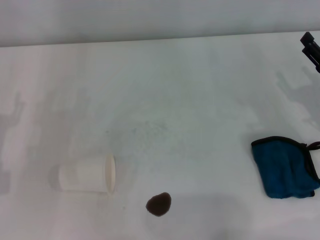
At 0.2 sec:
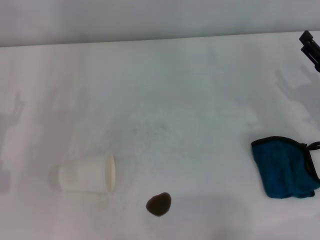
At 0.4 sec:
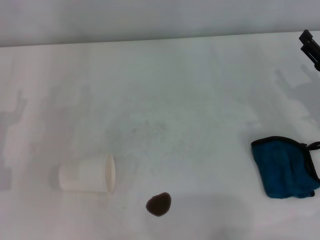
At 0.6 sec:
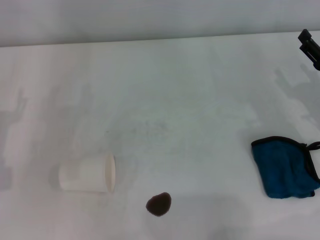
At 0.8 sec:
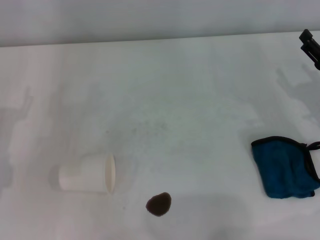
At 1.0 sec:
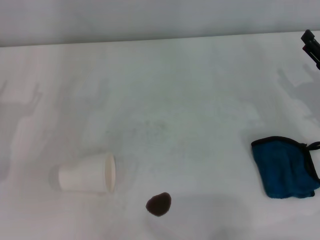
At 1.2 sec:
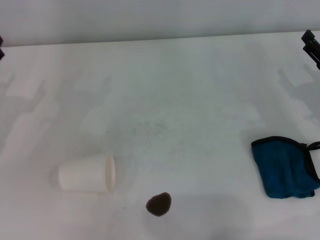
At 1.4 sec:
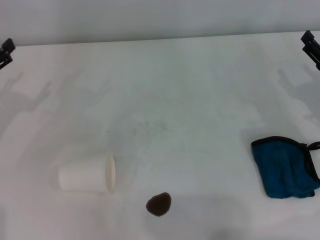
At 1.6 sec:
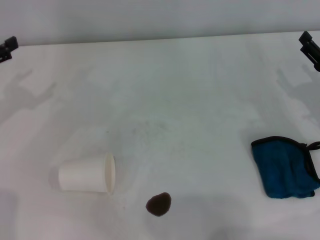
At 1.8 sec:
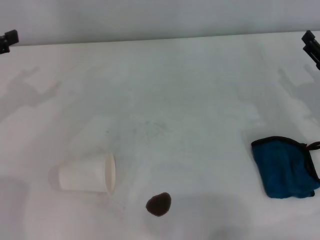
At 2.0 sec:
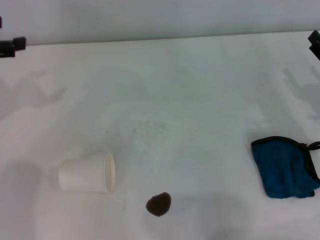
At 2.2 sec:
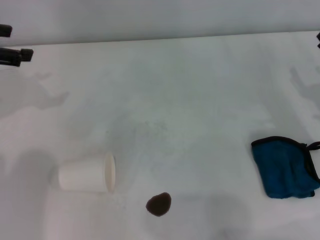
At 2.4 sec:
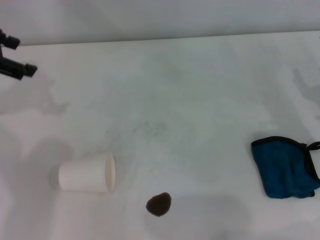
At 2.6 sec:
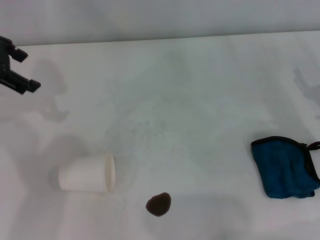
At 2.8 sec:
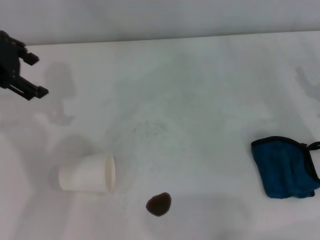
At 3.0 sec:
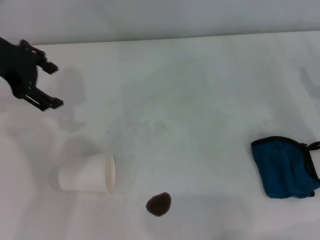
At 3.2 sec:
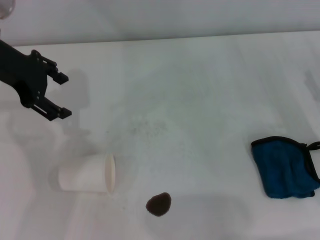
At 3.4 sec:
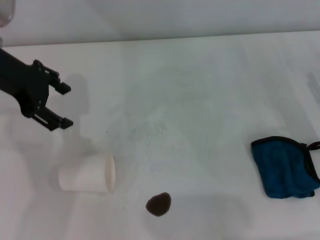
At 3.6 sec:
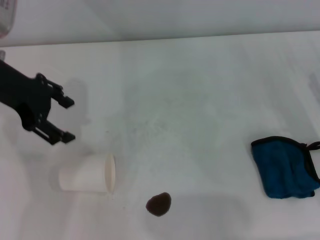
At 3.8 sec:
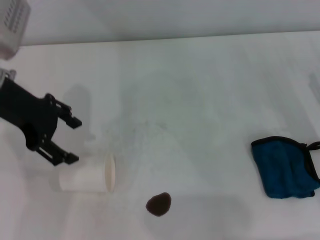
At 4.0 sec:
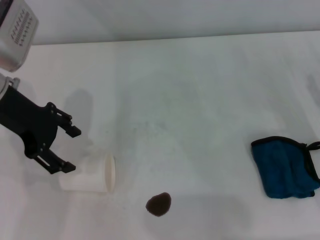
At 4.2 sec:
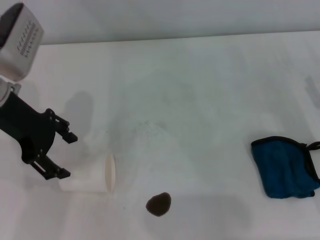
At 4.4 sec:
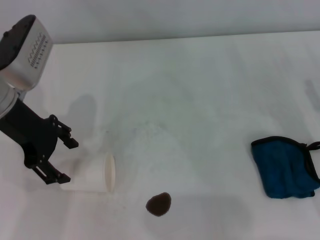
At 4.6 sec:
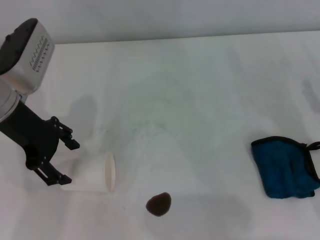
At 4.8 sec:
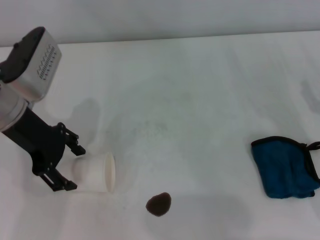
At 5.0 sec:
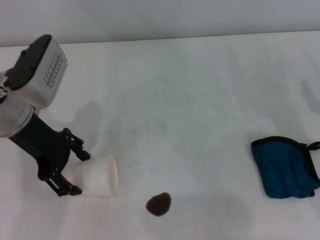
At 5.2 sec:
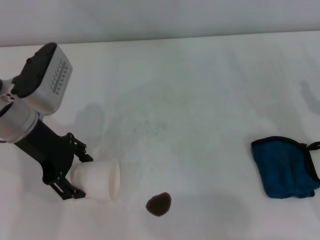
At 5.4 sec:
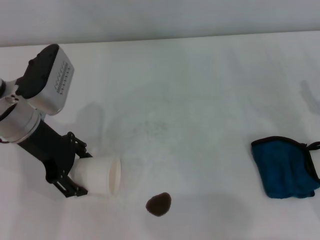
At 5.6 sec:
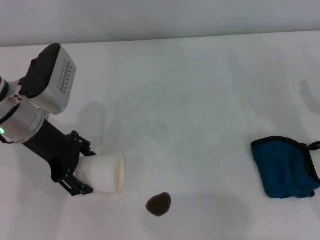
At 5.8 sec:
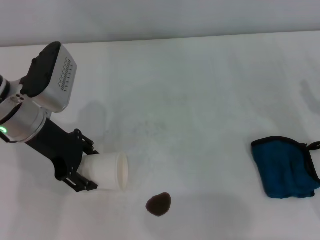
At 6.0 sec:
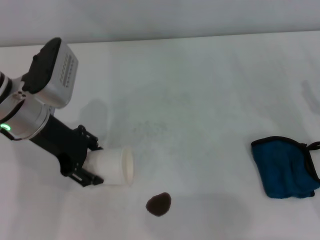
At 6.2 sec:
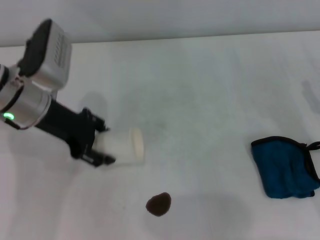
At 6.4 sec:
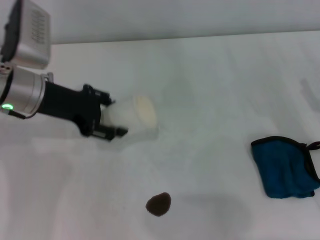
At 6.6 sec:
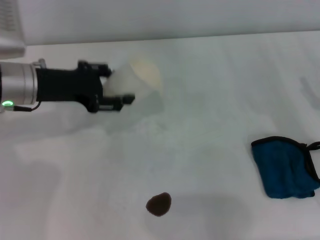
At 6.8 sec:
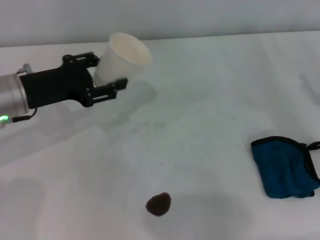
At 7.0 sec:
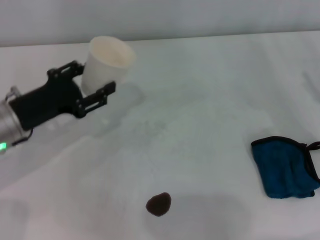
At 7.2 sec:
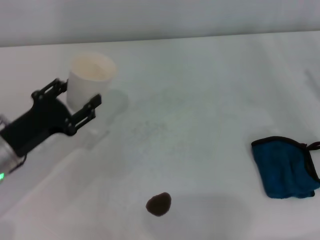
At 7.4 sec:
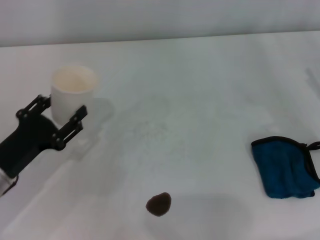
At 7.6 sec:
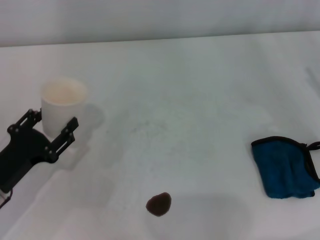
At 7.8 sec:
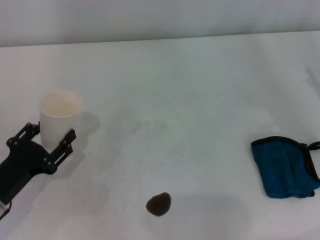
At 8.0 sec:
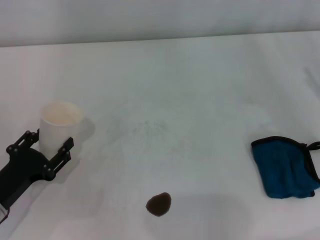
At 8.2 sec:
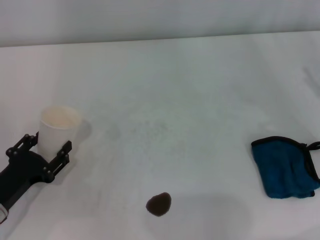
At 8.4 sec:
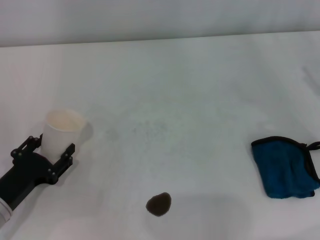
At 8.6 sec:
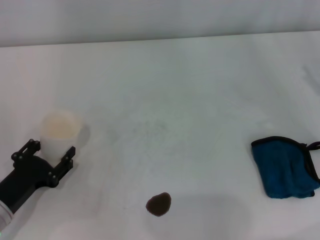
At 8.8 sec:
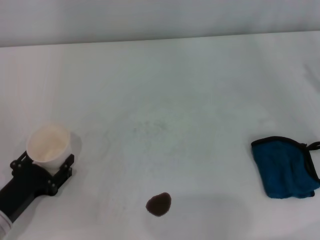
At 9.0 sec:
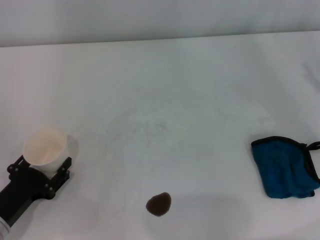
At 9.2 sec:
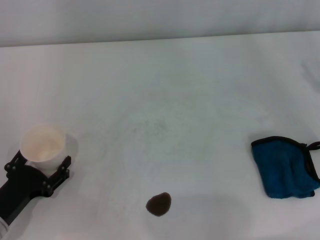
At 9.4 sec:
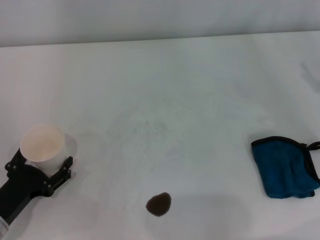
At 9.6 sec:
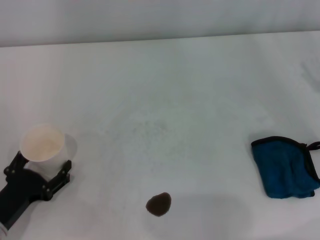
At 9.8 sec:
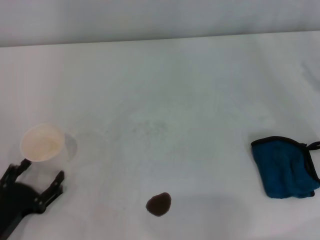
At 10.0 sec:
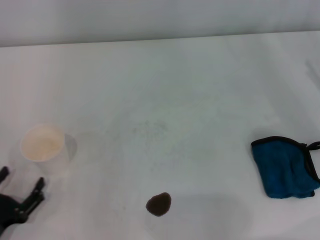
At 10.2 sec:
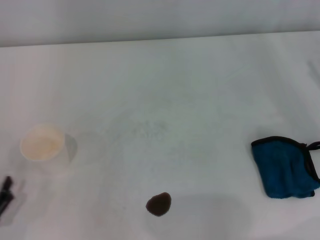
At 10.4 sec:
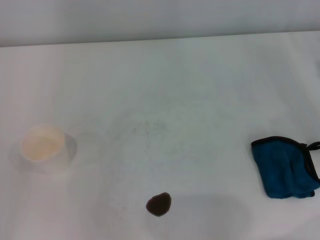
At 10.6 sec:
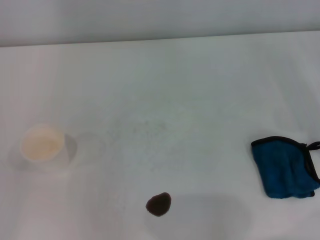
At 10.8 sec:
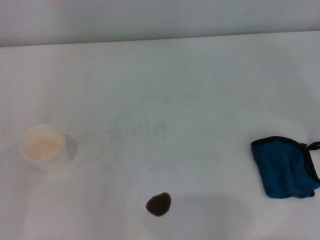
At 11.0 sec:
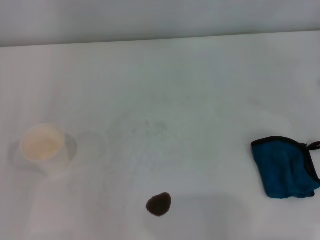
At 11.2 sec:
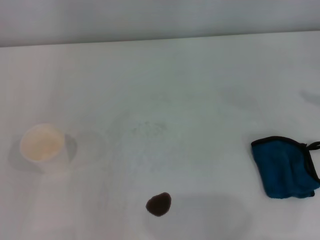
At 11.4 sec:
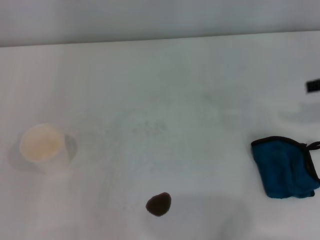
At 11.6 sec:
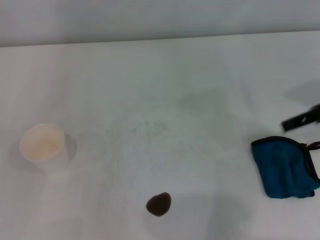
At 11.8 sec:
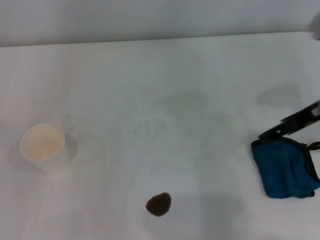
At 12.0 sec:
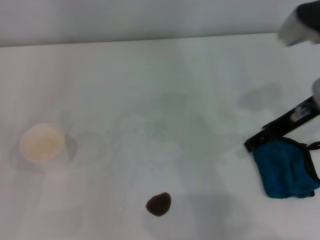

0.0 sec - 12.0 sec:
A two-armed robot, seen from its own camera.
Step, 0.0 sec - 5.8 sec: Grasp the paper cup with the left gripper.
Step, 6.0 sec - 9.4 sec: Stand the paper cup upright with the left gripper.
1.6 sec - 3.0 sec: The left gripper shifts about 15 cm to the right, upward and forward.
3.0 sec - 4.4 sec: The left gripper travels downward by some 5 cm.
4.4 sec - 6.0 sec: The left gripper changes place by approximately 5 cm, and closes its fingers.
6.0 sec - 7.6 sec: The left gripper moves backward, downward and to the left, some 20 cm, and closes up.
7.6 sec - 9.0 sec: The left gripper ends up about 5 cm from where it was.
9.0 sec - 10.4 sec: The left gripper travels backward and to the left by about 10 cm, and opens its fingers.
10.4 sec - 12.0 sec: The right gripper is displaced to the left and upward by some 20 cm.

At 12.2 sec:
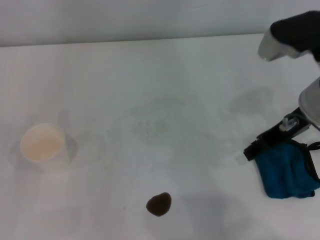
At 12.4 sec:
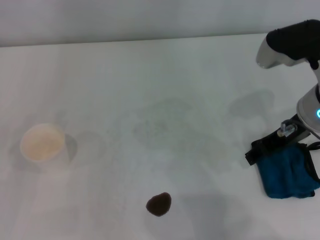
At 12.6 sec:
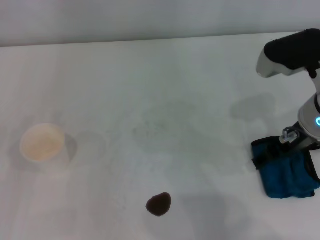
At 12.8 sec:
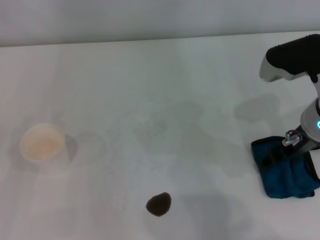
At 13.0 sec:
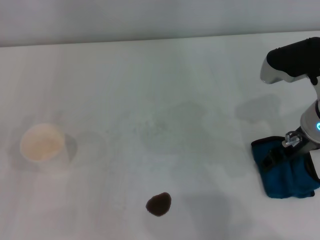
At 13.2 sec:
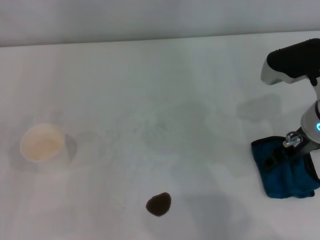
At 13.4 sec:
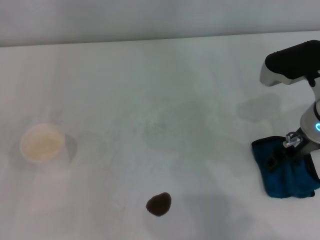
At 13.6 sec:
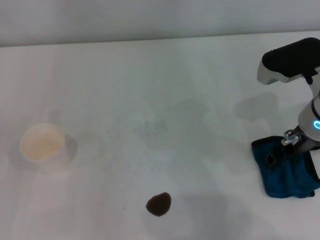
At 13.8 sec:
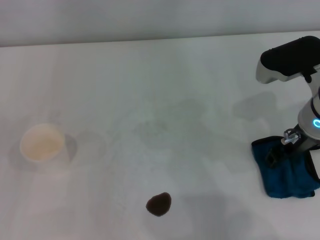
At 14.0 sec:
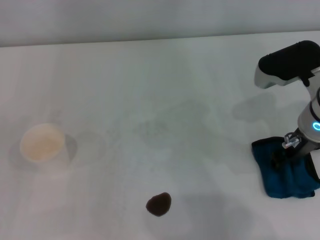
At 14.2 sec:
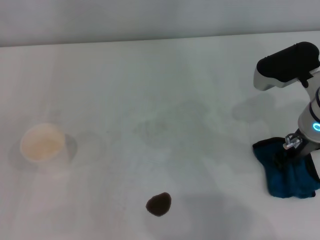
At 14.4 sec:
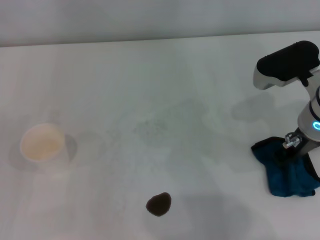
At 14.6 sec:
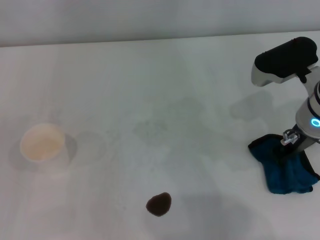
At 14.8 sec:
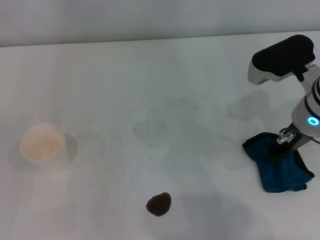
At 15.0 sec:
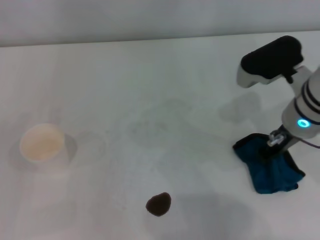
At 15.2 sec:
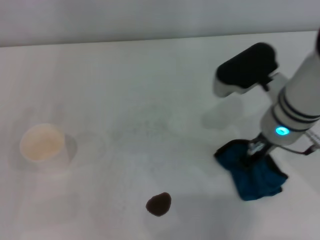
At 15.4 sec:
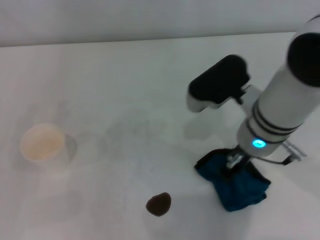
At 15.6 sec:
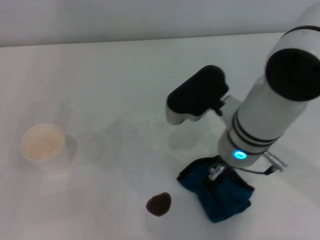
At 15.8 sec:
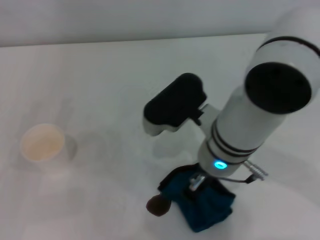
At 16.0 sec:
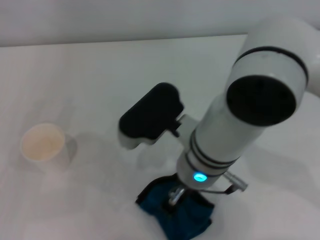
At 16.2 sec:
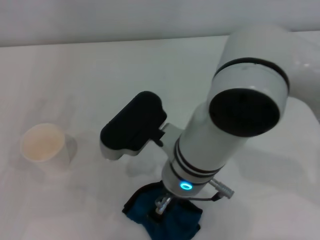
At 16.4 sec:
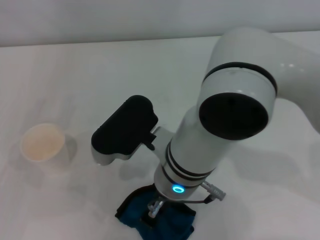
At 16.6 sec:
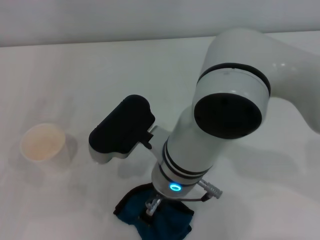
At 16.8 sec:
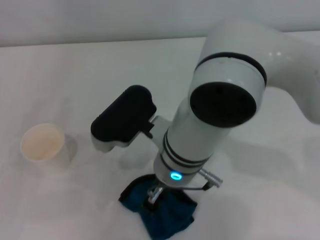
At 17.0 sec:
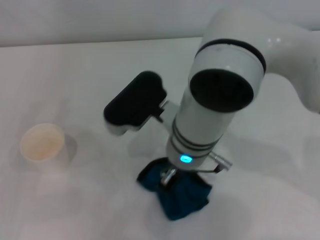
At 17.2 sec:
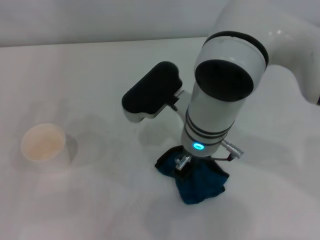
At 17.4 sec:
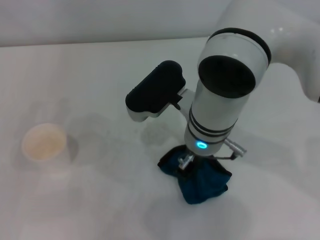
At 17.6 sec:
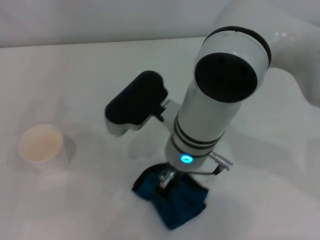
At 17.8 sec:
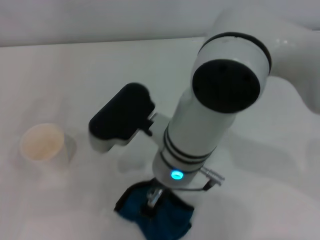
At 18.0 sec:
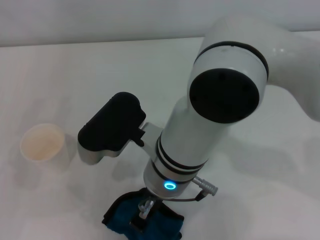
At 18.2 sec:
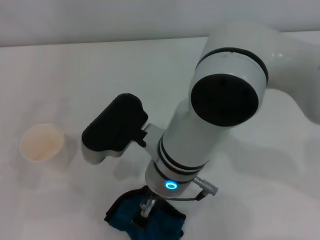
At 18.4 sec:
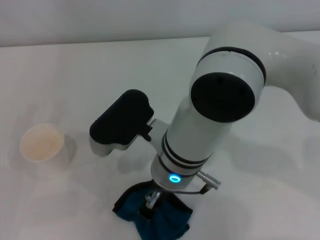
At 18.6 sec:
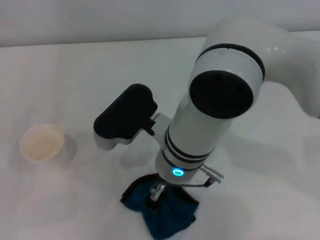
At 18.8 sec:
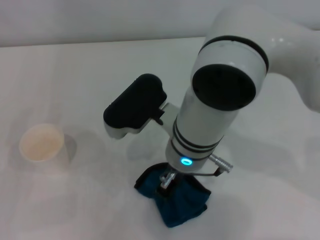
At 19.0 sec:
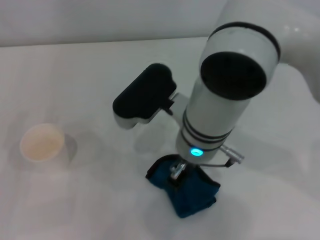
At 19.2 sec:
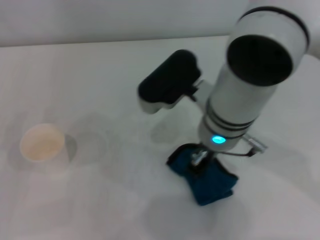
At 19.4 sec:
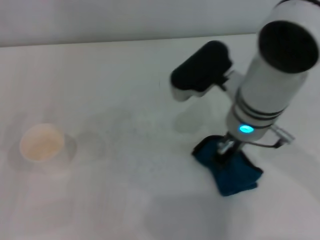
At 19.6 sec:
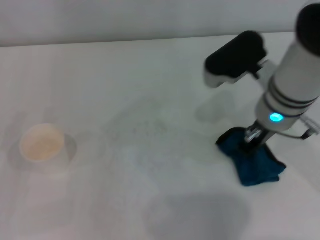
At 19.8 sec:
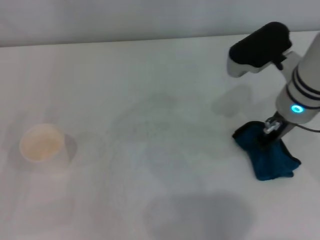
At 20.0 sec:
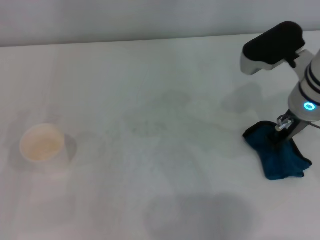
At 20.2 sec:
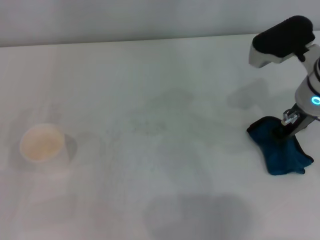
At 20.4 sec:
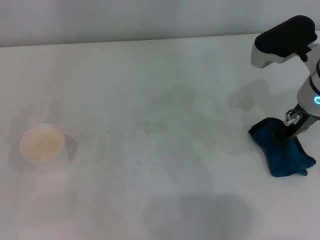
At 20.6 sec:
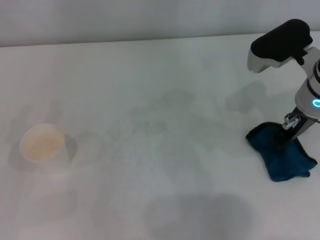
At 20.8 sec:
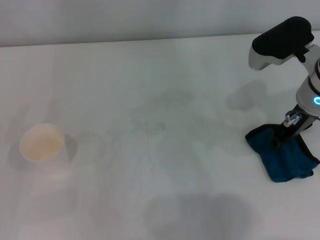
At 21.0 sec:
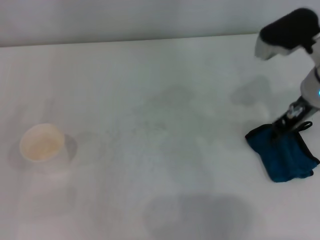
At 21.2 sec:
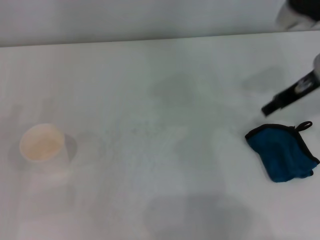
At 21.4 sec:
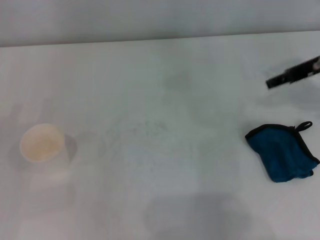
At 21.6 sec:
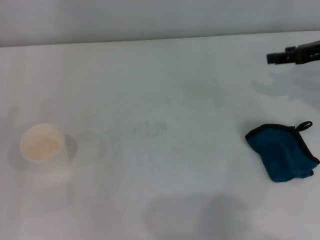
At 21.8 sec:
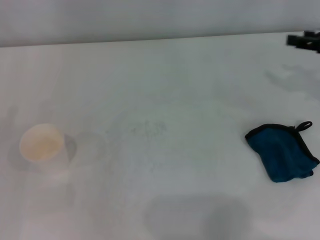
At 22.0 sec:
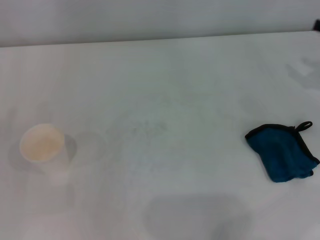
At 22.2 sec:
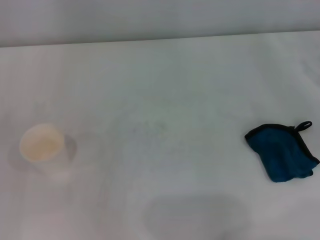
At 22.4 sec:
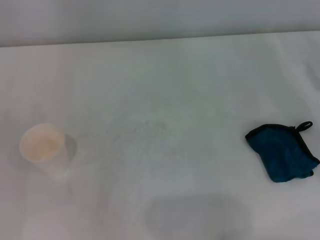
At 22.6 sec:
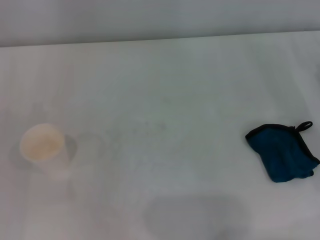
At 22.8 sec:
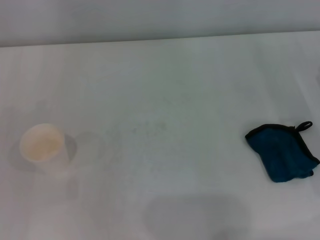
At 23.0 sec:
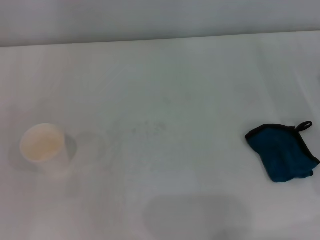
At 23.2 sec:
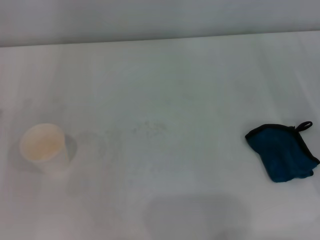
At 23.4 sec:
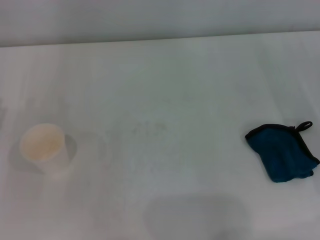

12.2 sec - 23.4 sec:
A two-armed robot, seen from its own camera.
Step, 12.2 sec - 14.2 sec: Grasp the rag with the right gripper.
Step, 14.4 sec - 20.0 sec: Wipe the stains off the table with the right gripper.
Step, 20.2 sec - 20.8 sec: Place the rag on the table with the right gripper.
12.2 sec - 13.8 sec: The right gripper closes up.
13.8 sec - 15.4 sec: The right gripper moves to the left, about 10 cm, and closes.
15.4 sec - 17.0 sec: The right gripper is displaced to the left by roughly 10 cm.
17.0 sec - 18.6 sec: The grippers move only a little.
18.6 sec - 20.2 sec: The right gripper is displaced to the right by about 20 cm.
20.2 sec - 21.8 sec: The right gripper goes roughly 15 cm to the right, and opens up.
21.8 sec - 23.4 sec: The right gripper heads downward and backward, covering about 10 cm.
